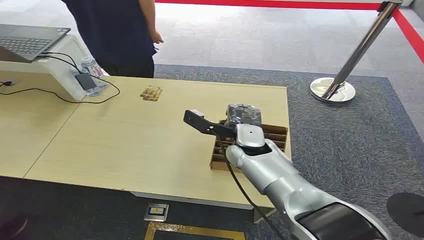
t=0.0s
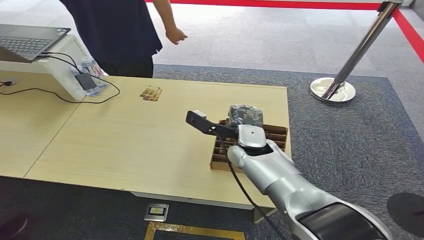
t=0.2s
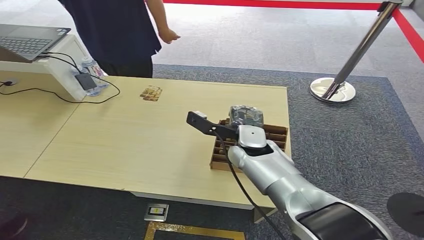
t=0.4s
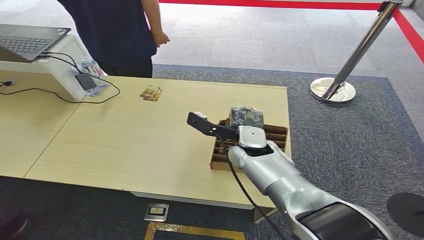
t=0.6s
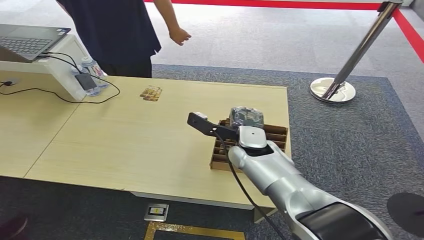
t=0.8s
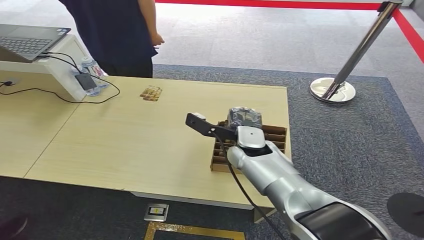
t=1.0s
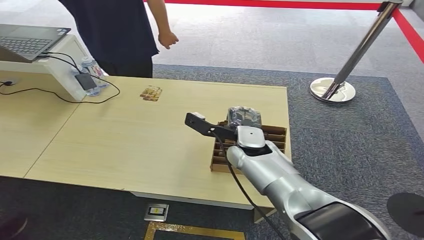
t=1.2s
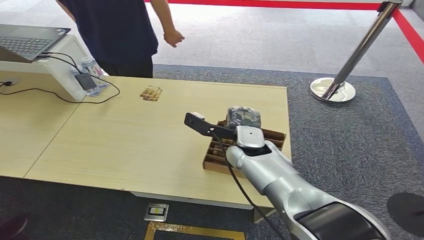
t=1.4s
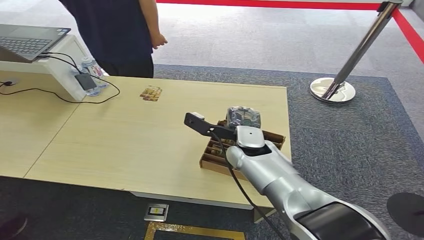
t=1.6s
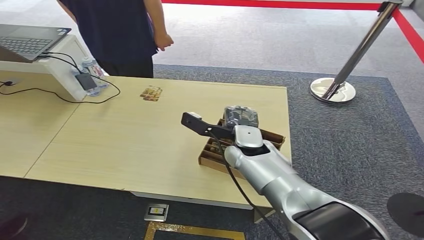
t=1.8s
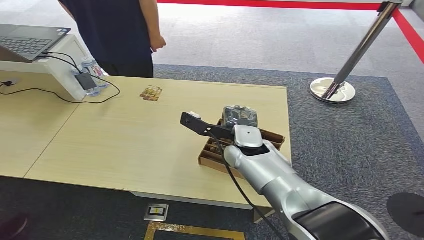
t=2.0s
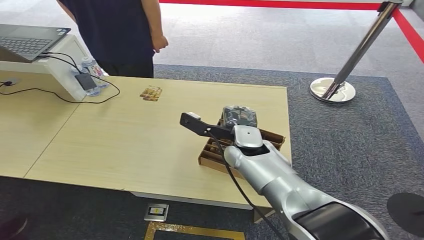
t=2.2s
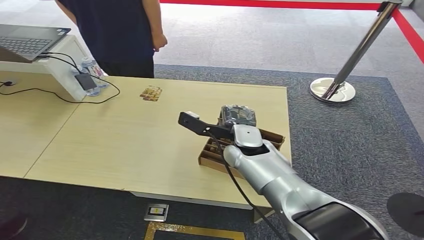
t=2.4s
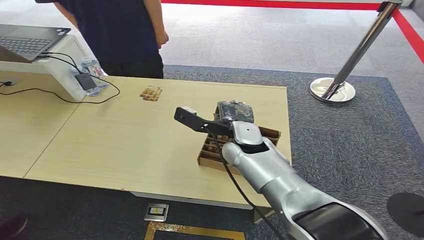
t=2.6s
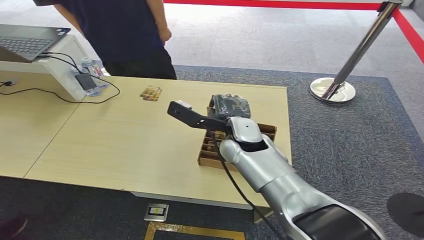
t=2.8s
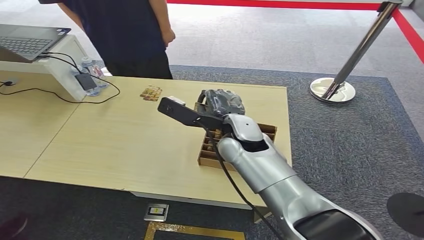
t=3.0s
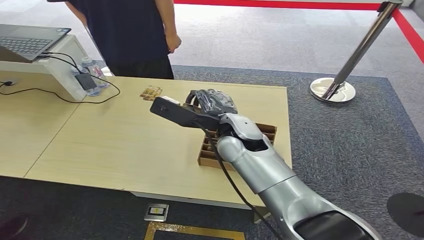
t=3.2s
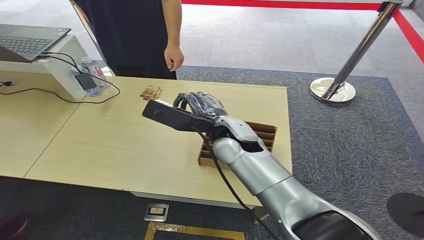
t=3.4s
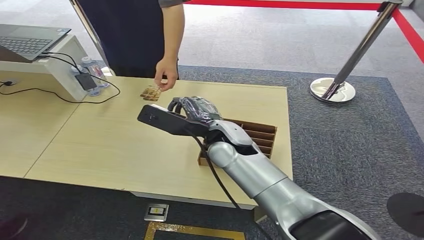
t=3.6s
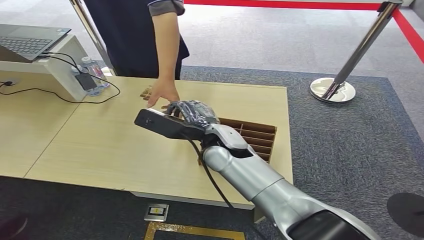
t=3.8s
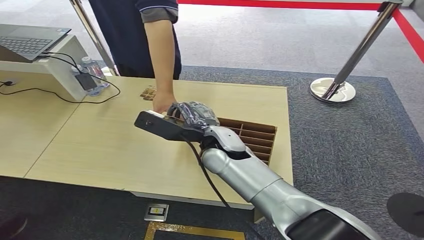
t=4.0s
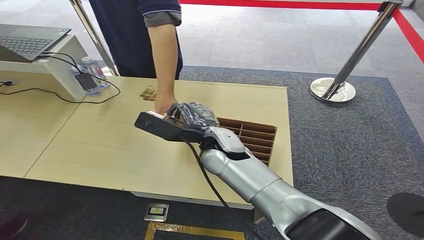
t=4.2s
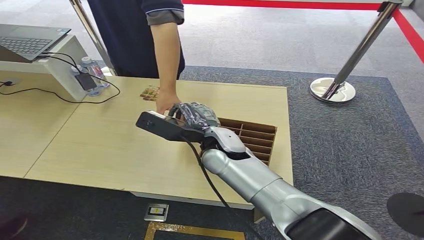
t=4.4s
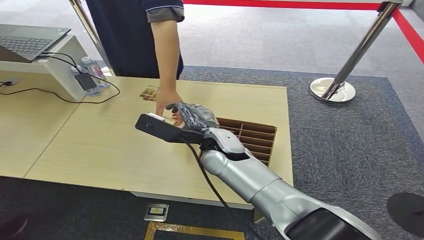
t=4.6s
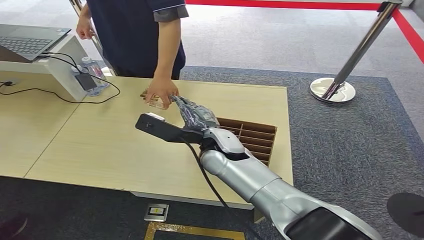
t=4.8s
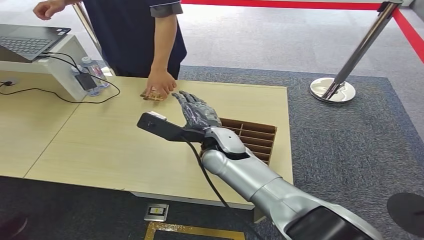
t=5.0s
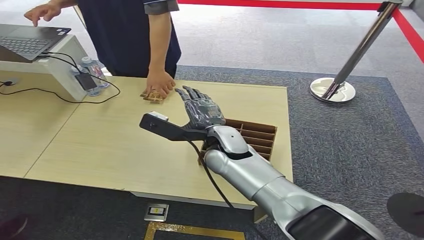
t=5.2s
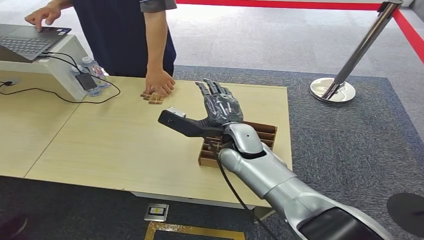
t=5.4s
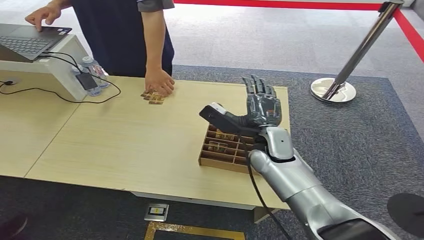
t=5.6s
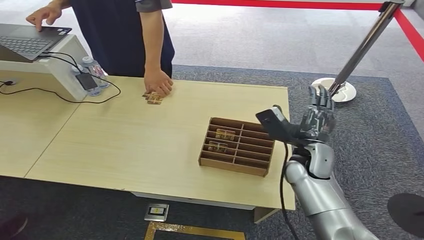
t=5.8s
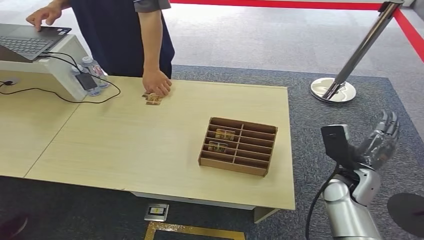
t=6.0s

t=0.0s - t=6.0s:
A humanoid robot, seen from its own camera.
Step, t=0.0s - t=3.2s: Pick up the key card from the card box.
Step, t=3.4s - t=6.0s: Hand the key card to the target.
t=1.6s - t=3.0s: The right hand travels upward by approximately 5 cm.
t=4.4s - t=6.0s: The right hand goes about 25 cm to the right.

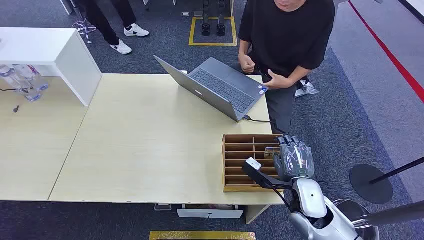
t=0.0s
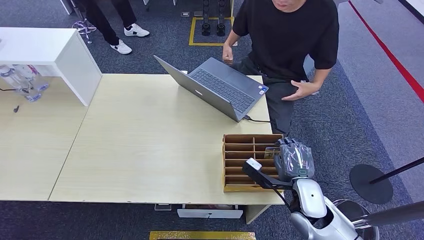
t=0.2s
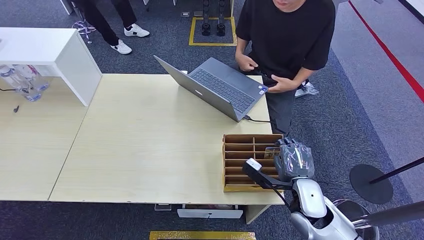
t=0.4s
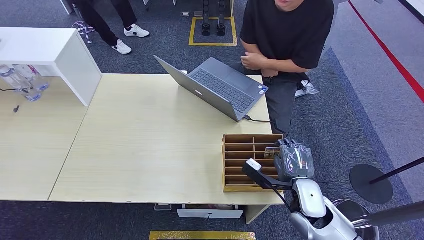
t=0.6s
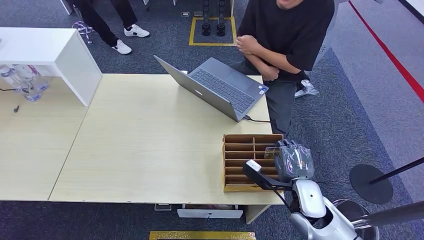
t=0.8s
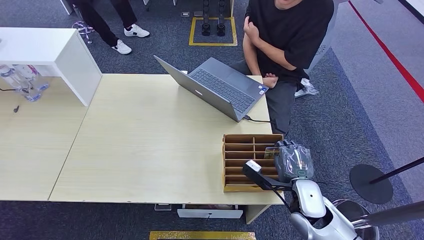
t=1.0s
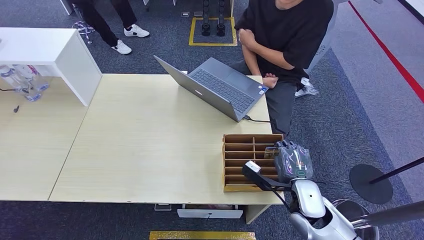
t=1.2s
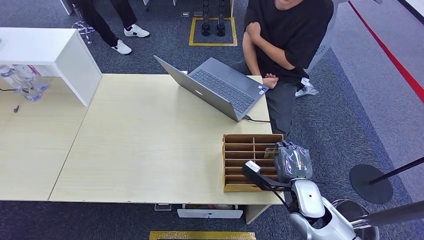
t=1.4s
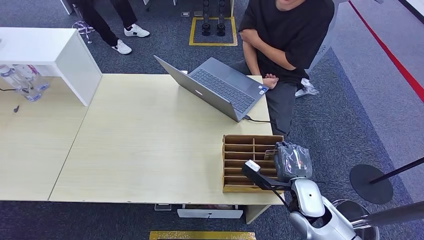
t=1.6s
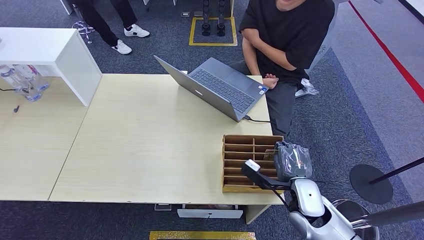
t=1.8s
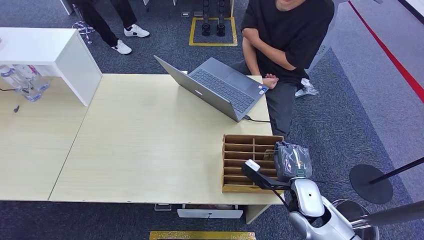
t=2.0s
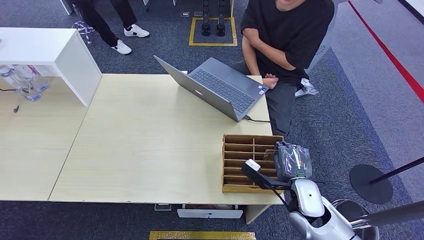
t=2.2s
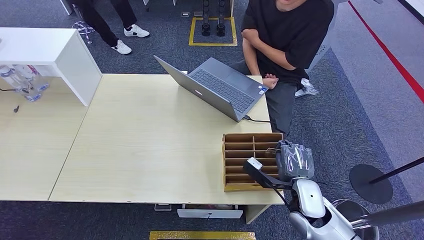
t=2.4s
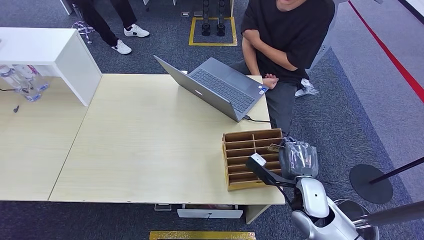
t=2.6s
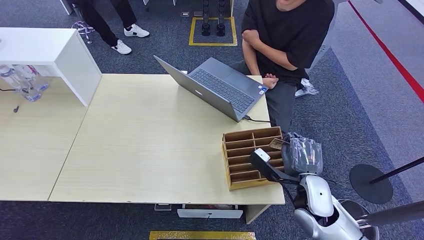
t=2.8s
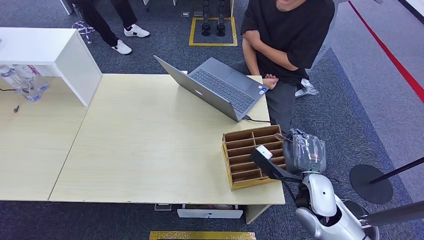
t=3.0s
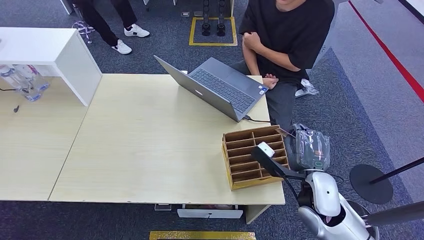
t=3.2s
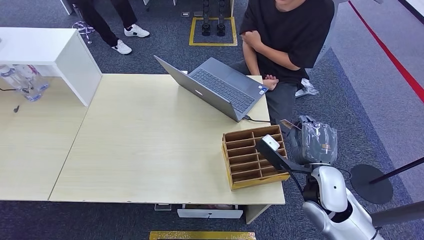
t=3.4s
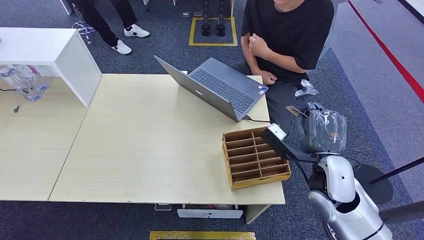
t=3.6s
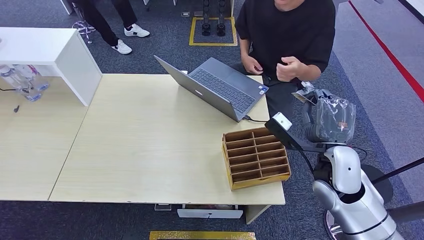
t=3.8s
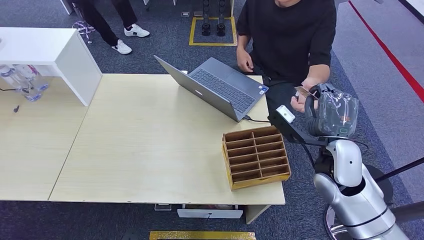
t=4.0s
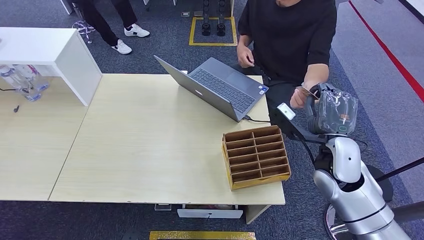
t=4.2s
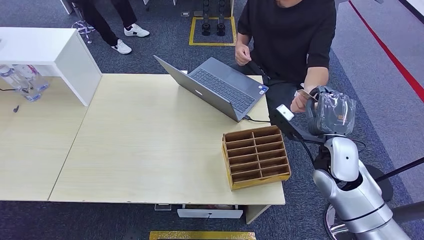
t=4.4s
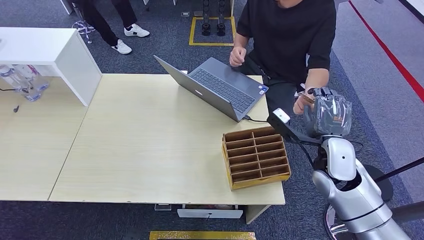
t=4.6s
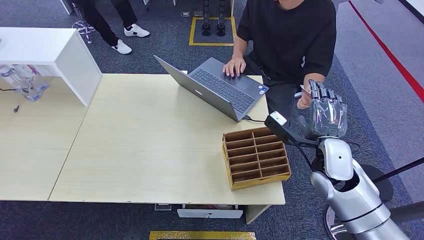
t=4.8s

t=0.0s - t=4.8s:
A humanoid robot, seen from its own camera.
Step, t=0.0s - t=2.8s: Pick up the key card from the card box.
Step, t=3.0s - t=4.8s: Hand the key card to the target.
t=1.6s - t=3.2s: The right hand goes roughly 5 cm upward.
t=3.2s - t=4.8s: The right hand goes some 5 cm forward.

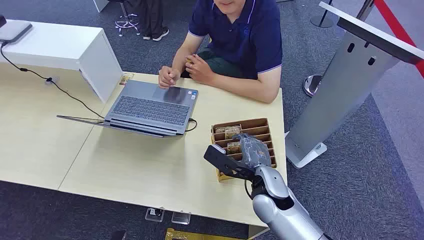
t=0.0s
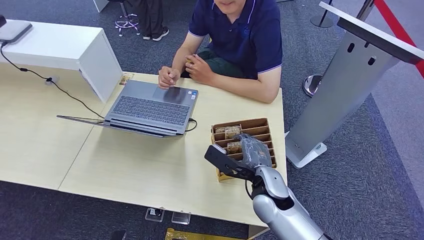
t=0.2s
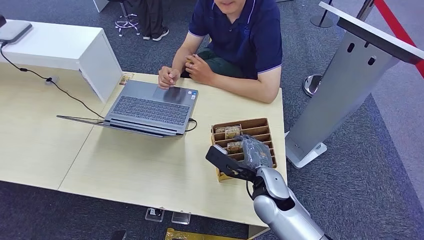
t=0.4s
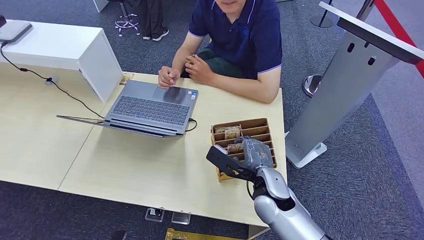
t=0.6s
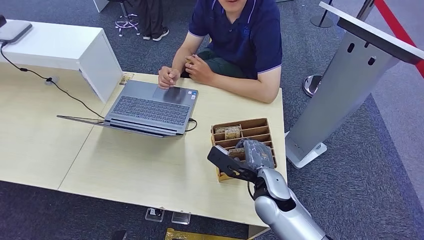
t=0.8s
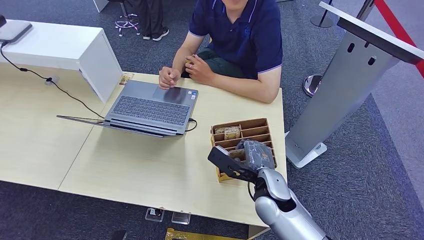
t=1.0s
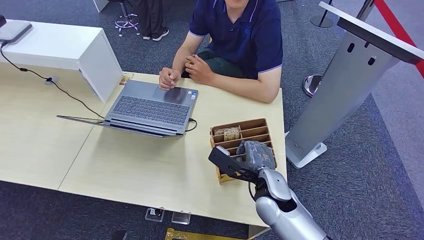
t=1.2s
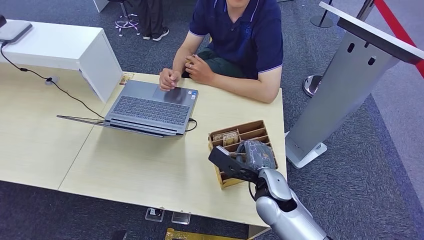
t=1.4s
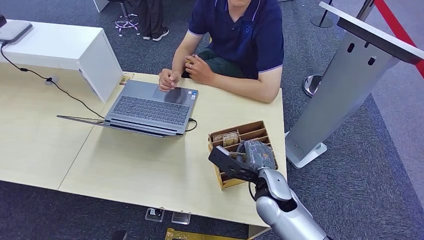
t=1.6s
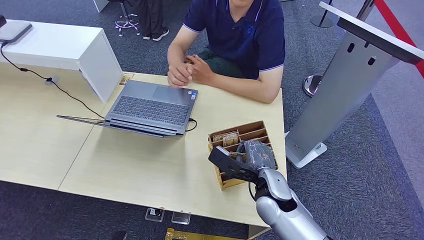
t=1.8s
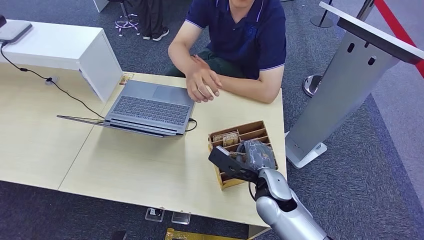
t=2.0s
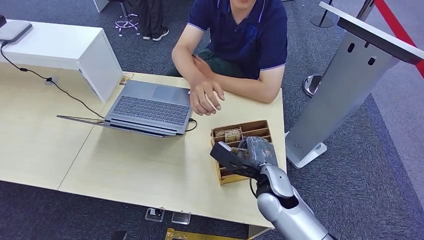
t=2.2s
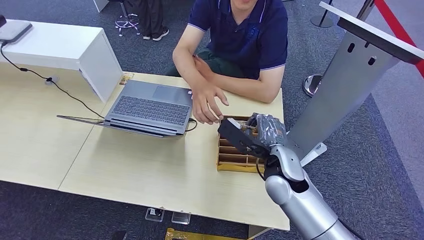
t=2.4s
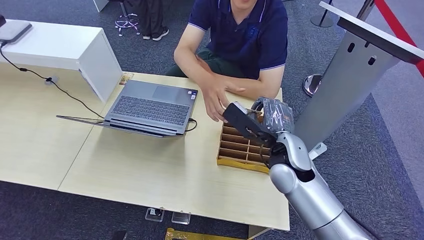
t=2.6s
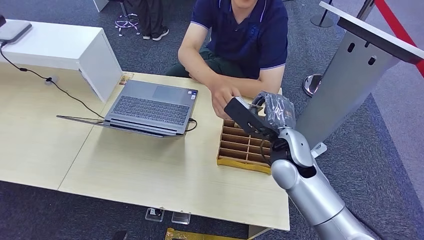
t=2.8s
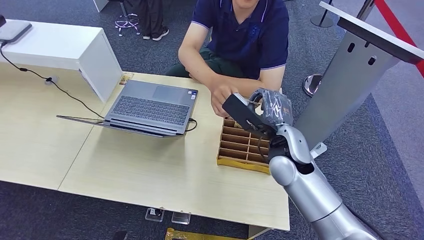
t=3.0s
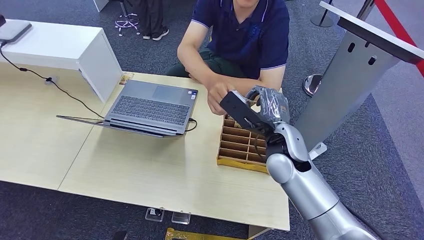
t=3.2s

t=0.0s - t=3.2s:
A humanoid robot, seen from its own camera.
Step, t=0.0s - t=2.6s: Pick up the key card from the card box.
Step, t=2.8s - t=3.2s: Hand the key card to the target.
t=1.6s - t=3.2s: The right hand heads upward and forward, covering some 10 cm.
